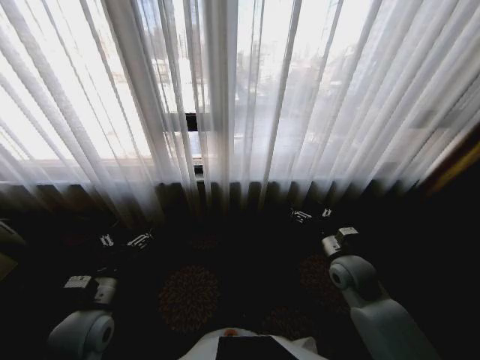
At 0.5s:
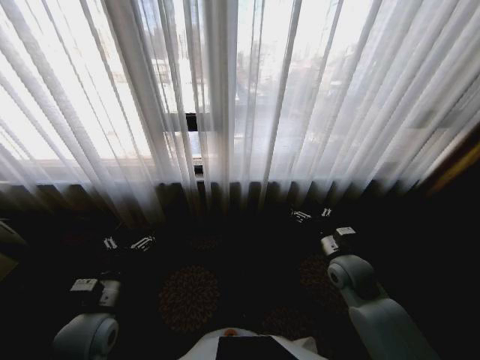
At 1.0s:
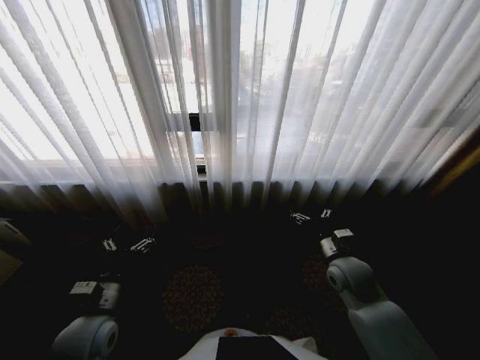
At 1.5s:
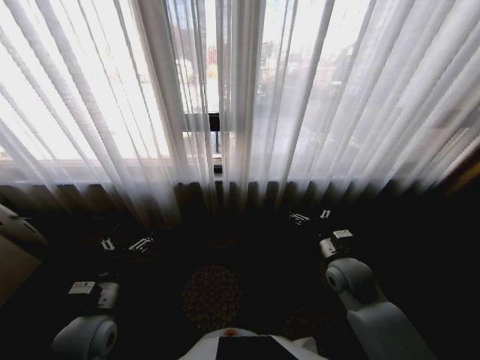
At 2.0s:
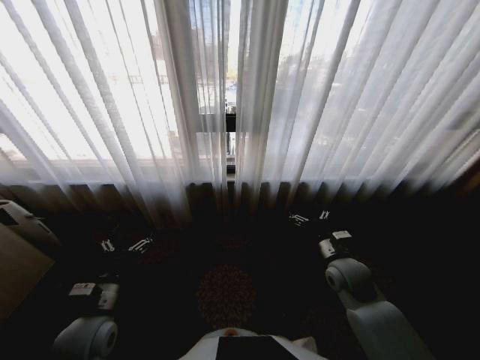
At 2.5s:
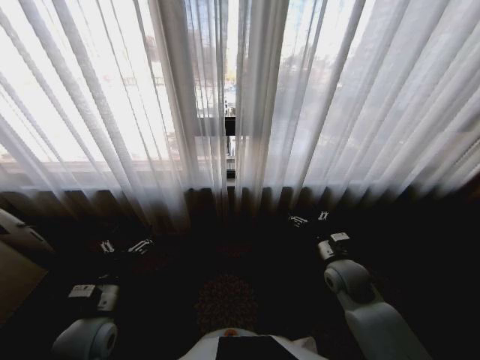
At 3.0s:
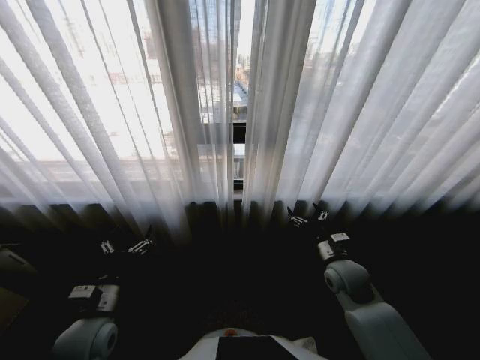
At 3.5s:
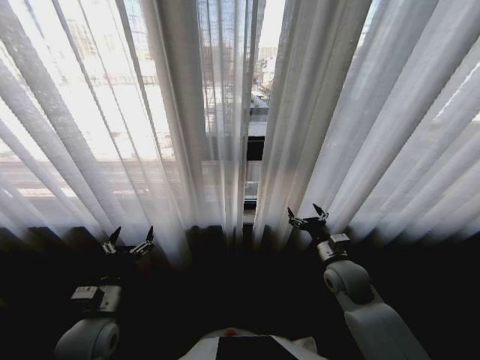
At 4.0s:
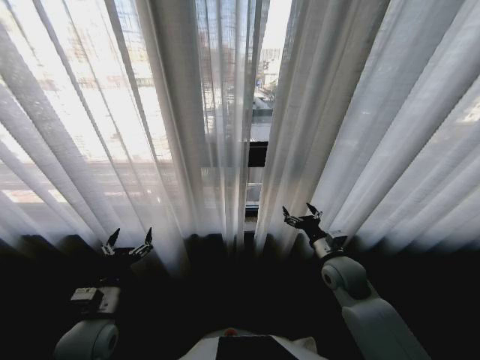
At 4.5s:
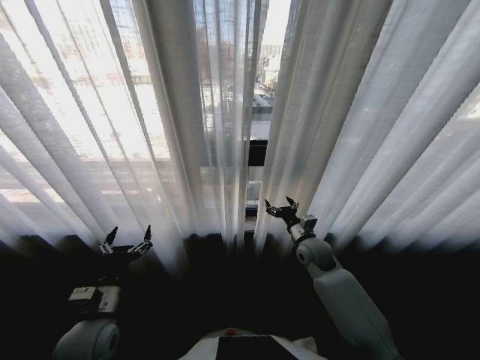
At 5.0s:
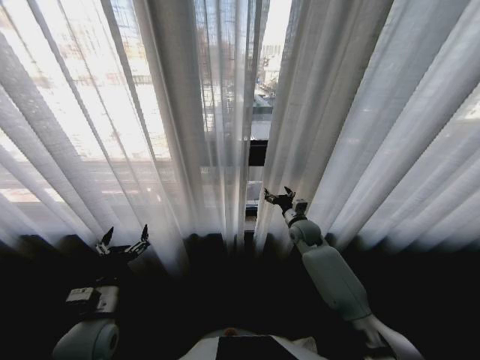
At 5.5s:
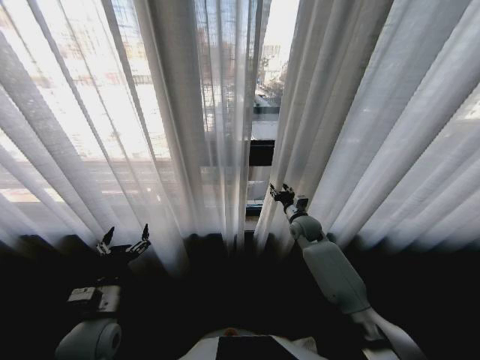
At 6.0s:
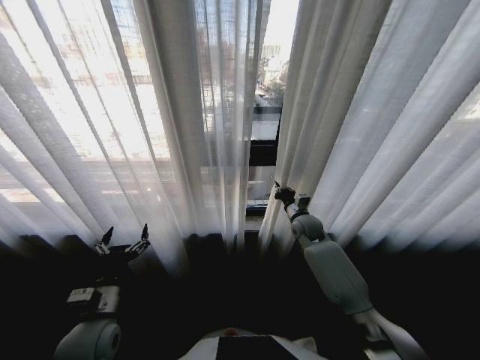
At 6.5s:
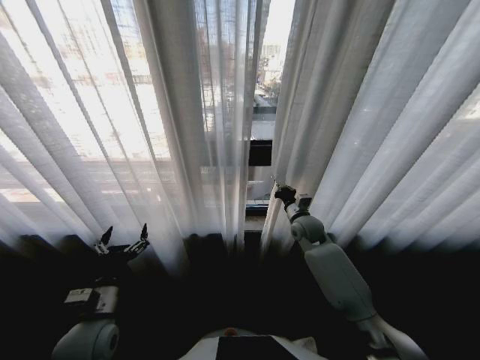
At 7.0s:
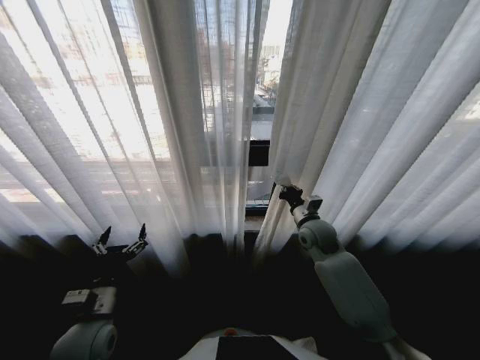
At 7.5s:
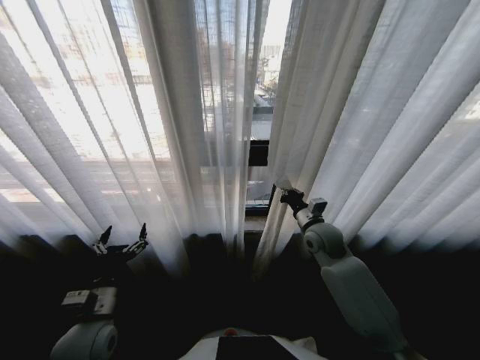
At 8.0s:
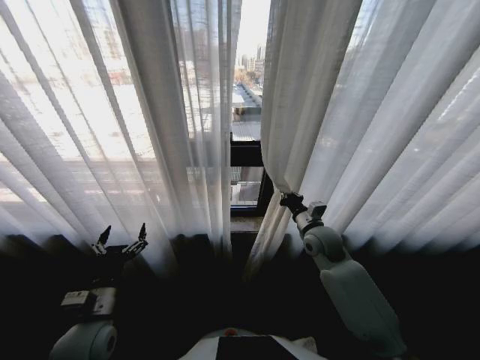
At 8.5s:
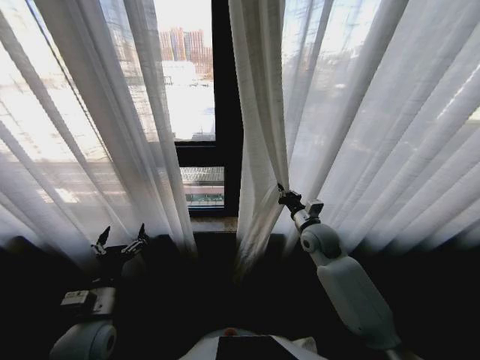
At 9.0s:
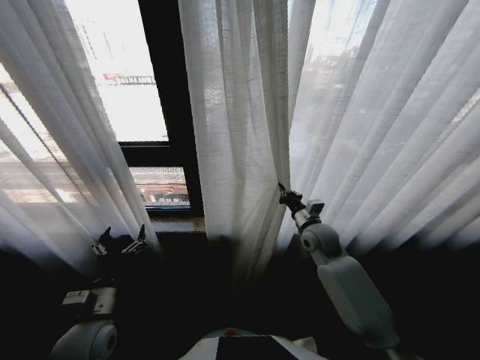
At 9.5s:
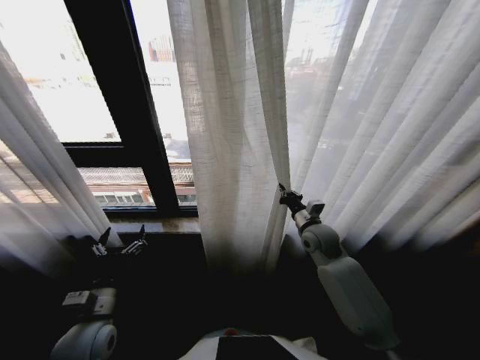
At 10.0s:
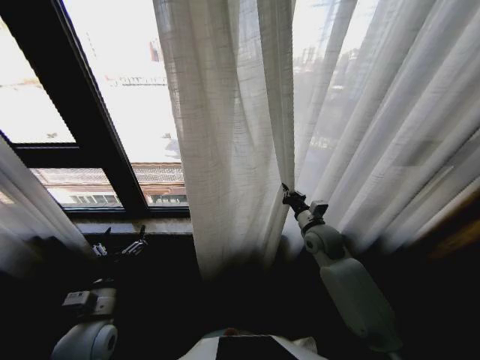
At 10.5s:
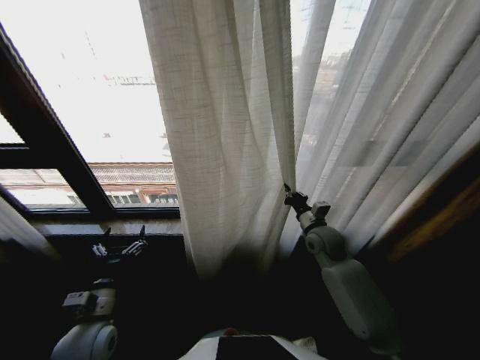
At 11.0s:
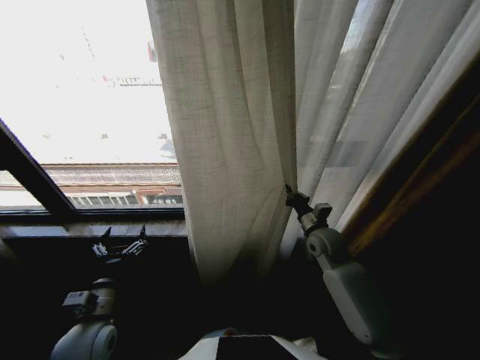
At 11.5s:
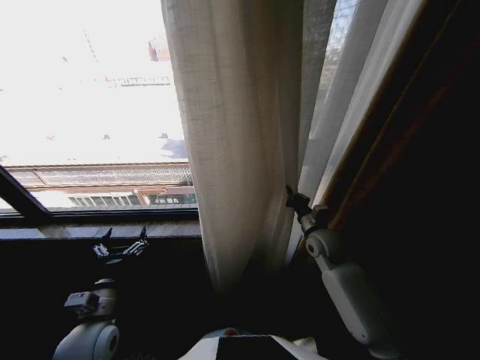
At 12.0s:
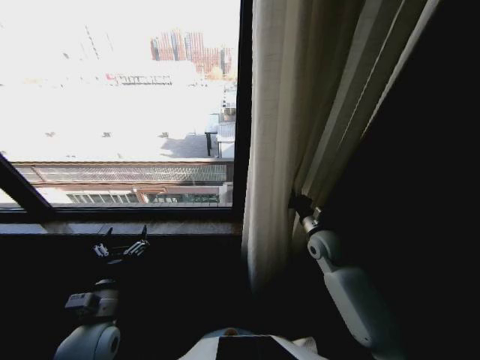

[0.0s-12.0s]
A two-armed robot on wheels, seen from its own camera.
Task of the whole recording: Open the curtains by pulling them apart, changing their state from closed to fully open.
4.0s to 6.0s: The right gripper goes about 15 cm forward, and closes.
6.0s to 8.0s: The right gripper heads backward, covering some 10 cm.

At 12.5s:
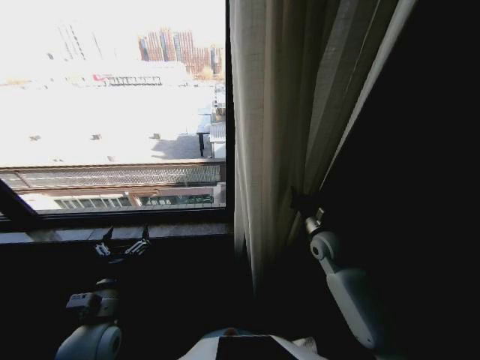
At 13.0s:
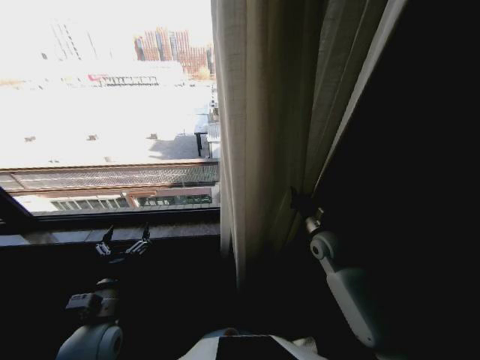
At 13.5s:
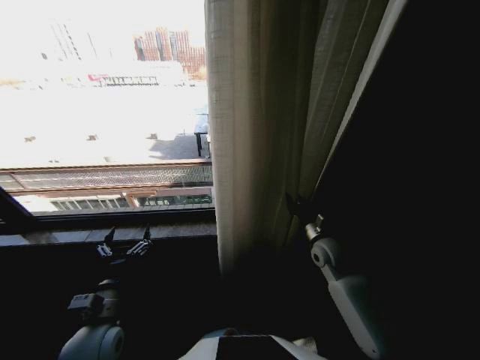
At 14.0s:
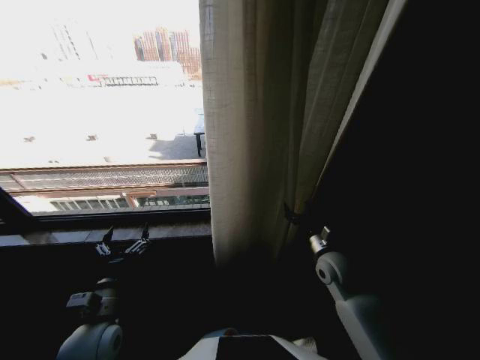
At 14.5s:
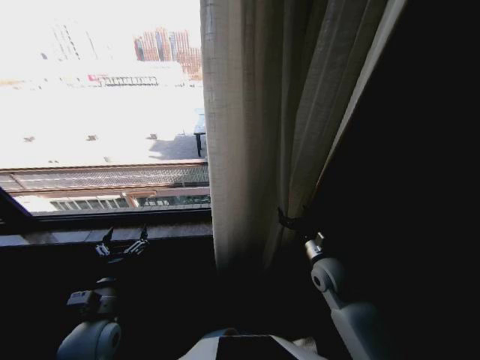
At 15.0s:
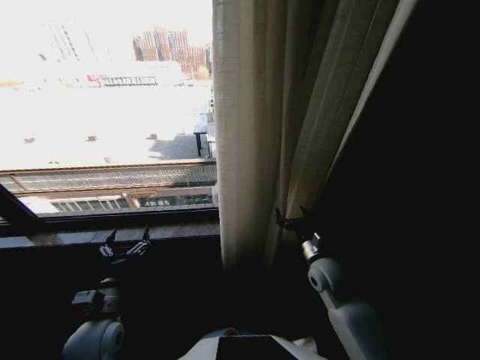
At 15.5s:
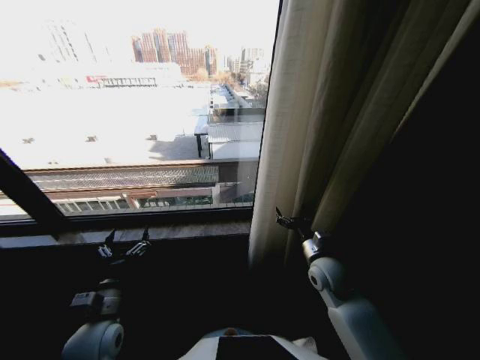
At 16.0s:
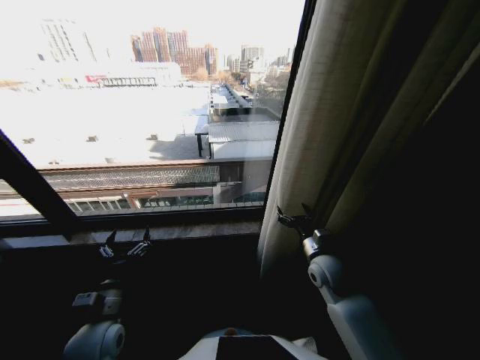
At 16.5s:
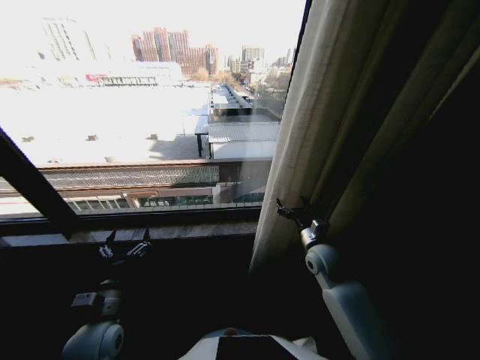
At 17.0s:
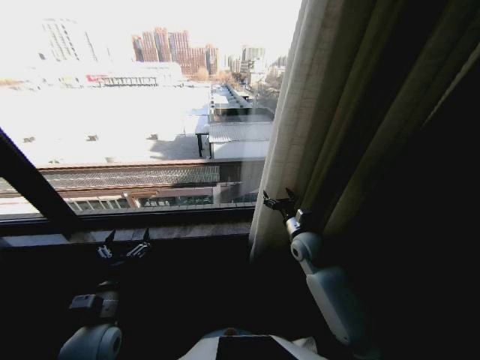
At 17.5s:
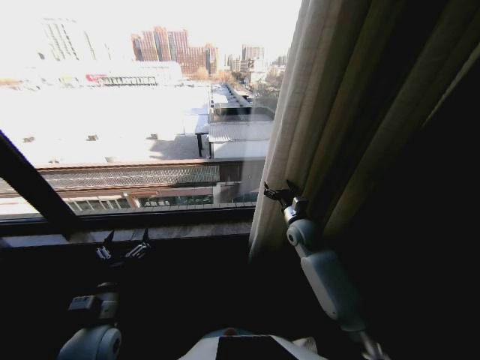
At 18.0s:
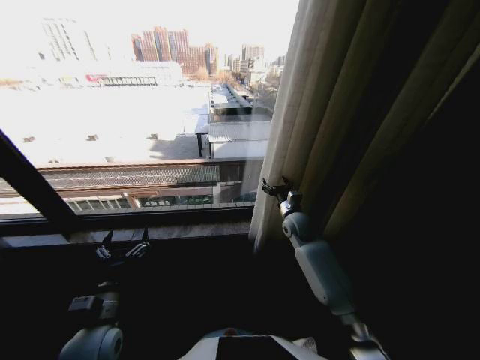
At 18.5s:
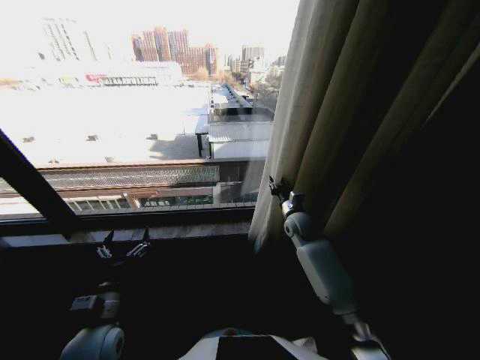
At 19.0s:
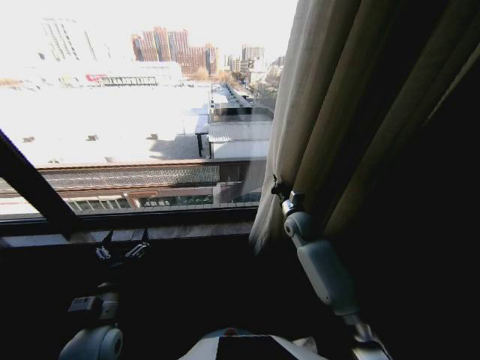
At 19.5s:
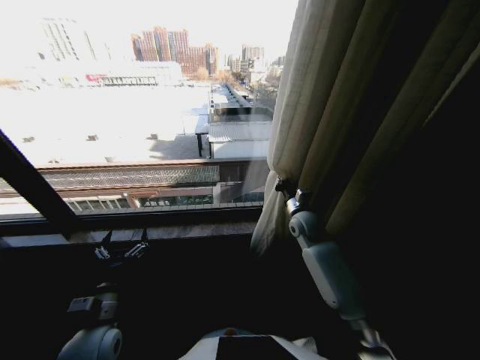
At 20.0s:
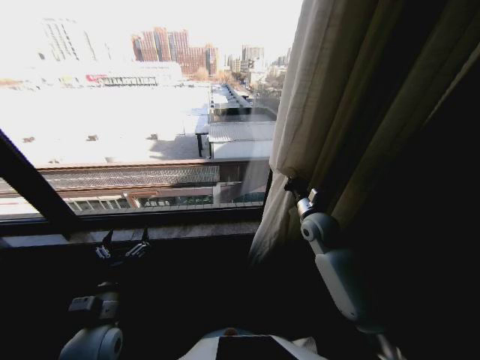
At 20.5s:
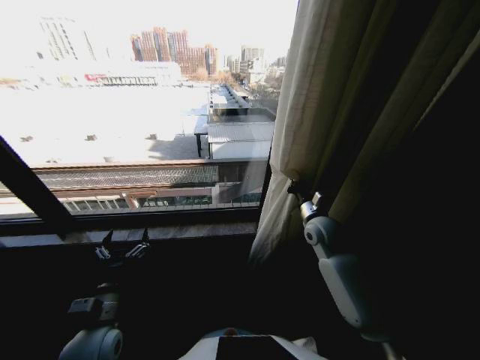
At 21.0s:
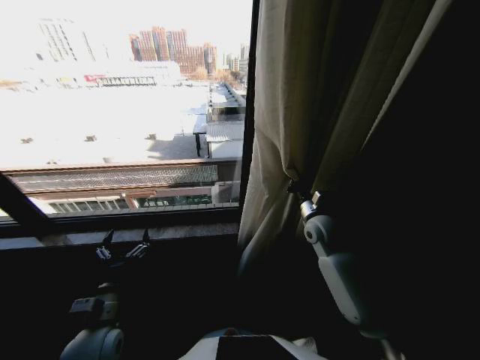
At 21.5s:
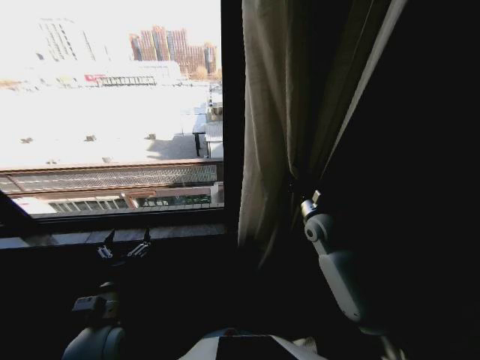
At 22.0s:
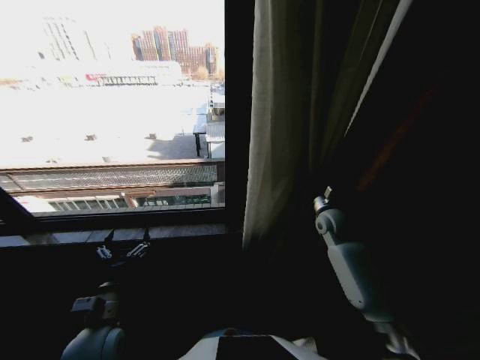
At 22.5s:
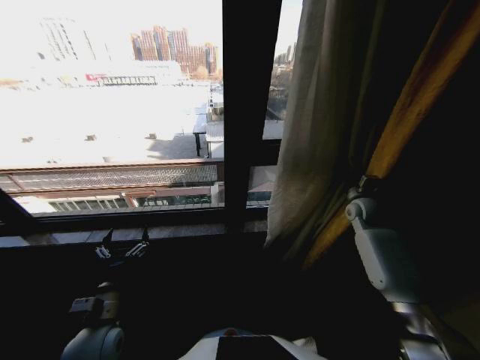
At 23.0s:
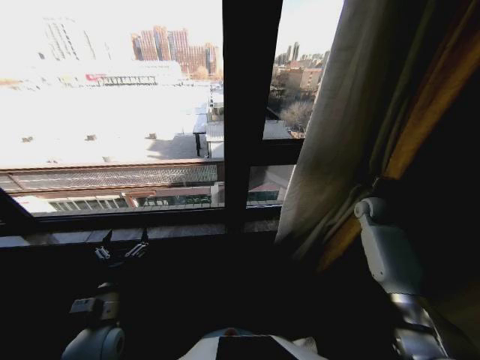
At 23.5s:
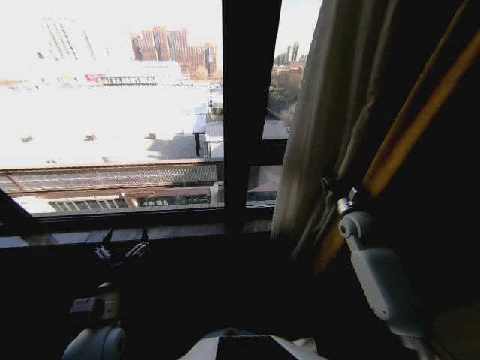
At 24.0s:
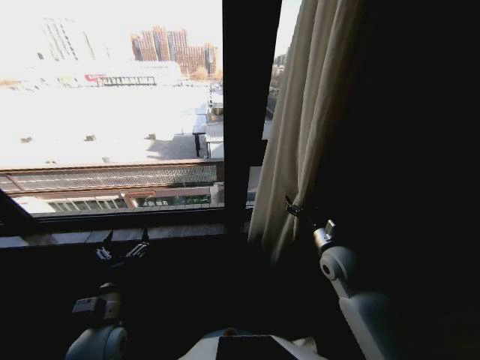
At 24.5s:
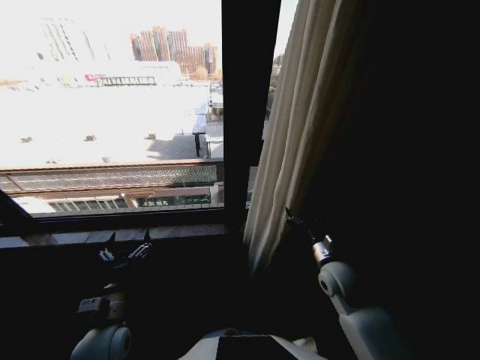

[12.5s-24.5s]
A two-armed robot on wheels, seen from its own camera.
Task of the whole recording: Open the curtains by pulling them apart, changing their state from closed to fully open.
12.5s to 14.5s: The right gripper travels backward by approximately 10 cm, and opens its fingers.
16.5s to 18.5s: The right gripper is displaced forward by some 10 cm, and closes its fingers.
18.5s to 20.5s: The right gripper travels backward by approximately 5 cm, and closes up.
20.5s to 22.5s: The right gripper travels to the right and forward by about 15 cm.
22.5s to 24.5s: The right gripper moves backward and to the left, roughly 25 cm, and opens.

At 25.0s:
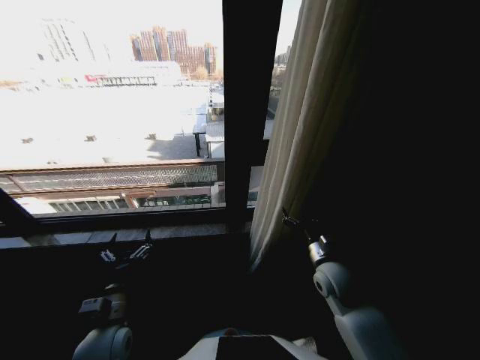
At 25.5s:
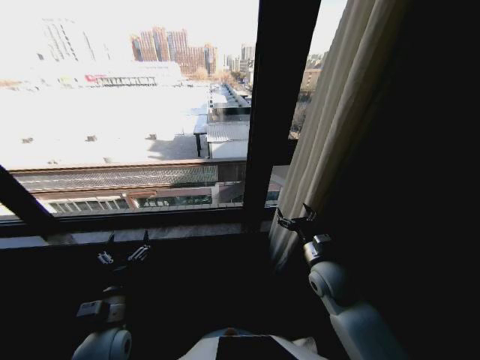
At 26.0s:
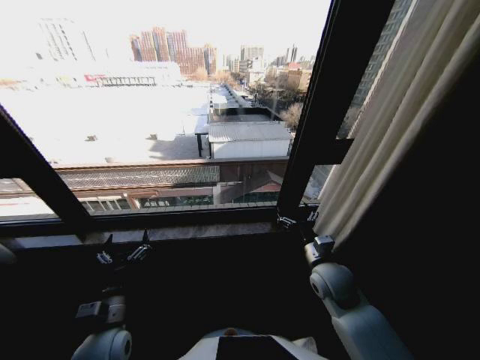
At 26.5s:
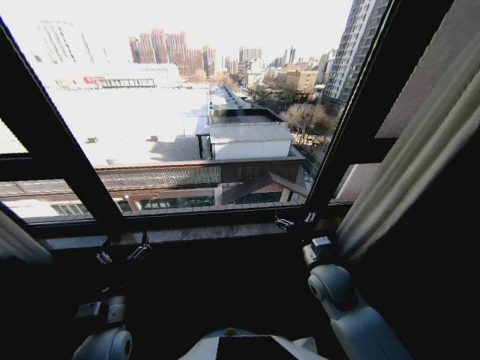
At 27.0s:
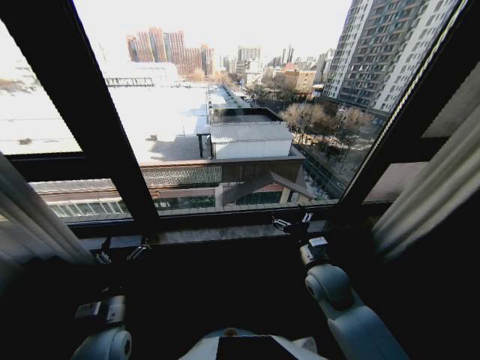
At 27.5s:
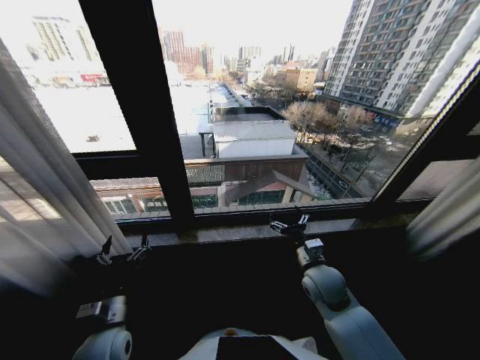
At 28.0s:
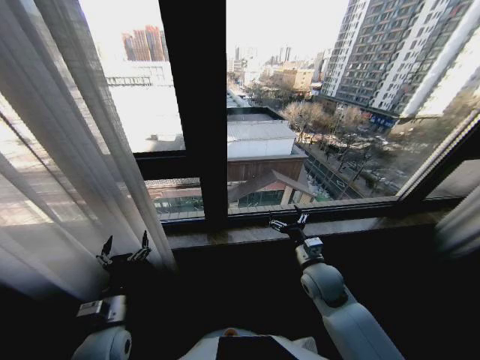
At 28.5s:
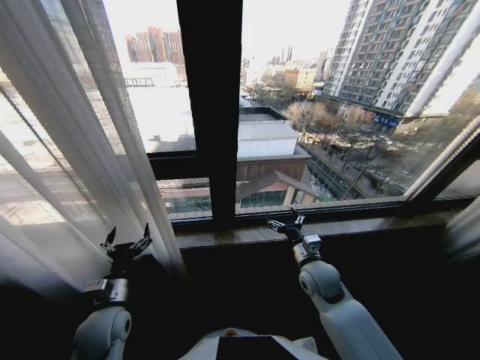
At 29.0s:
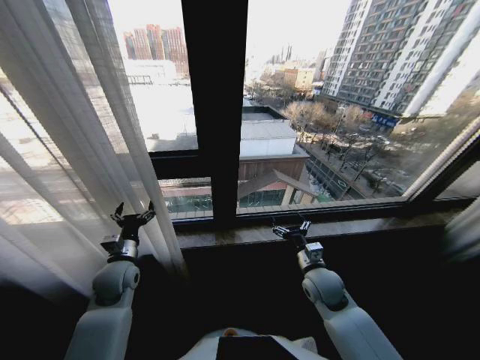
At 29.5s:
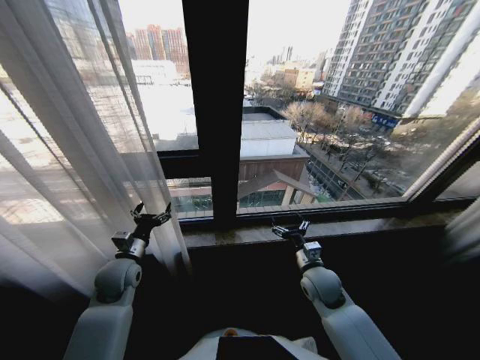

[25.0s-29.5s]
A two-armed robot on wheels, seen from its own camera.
Task of the whole recording: Open the curtains by pulling them apart, changing their state from closed to fully open.
27.0s to 29.5s: The left gripper is displaced forward by approximately 15 cm.
